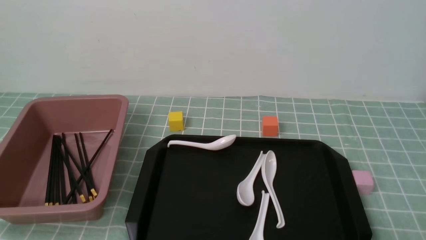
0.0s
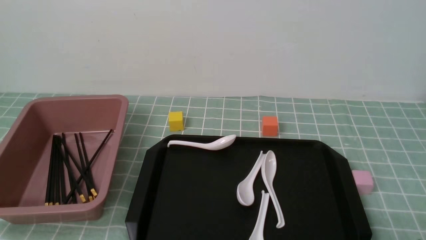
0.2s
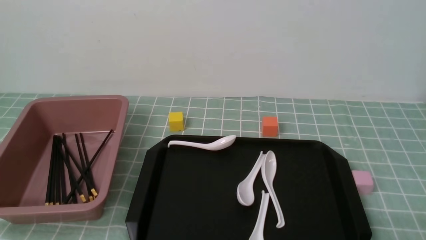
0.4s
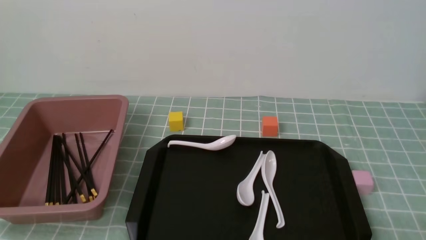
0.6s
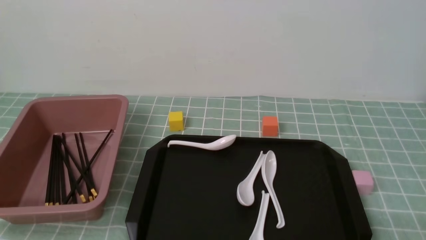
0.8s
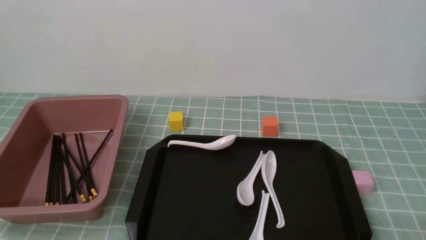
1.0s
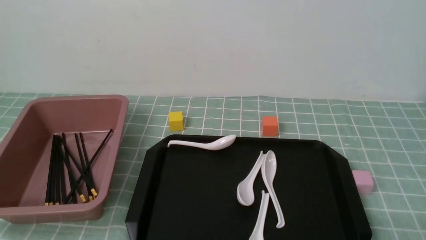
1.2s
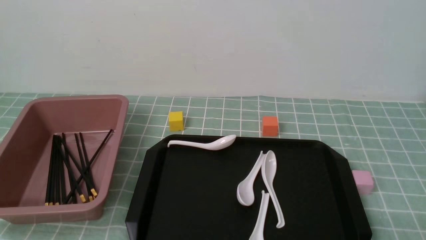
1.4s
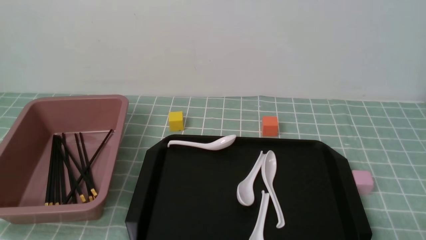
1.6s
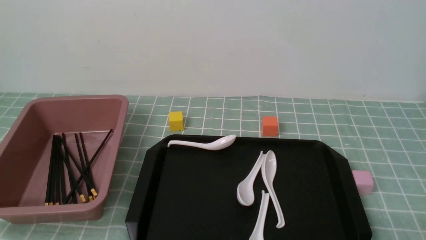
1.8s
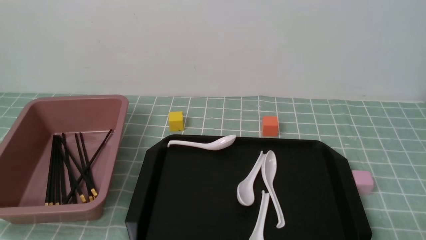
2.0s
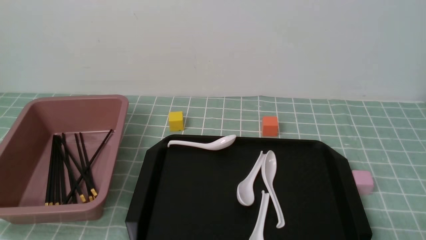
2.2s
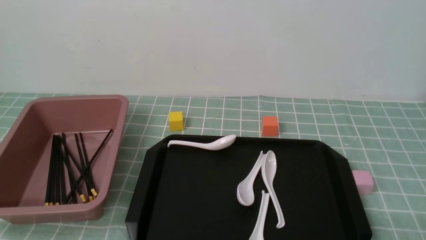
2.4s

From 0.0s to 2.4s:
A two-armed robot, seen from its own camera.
From 1.2s to 2.4s: The two grippers keep their place.
